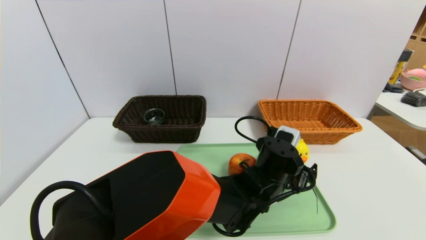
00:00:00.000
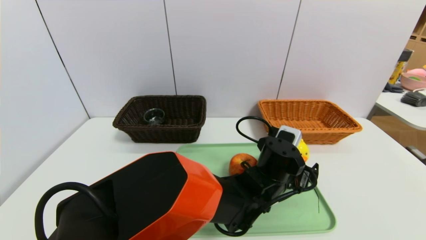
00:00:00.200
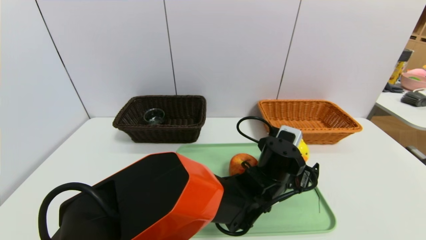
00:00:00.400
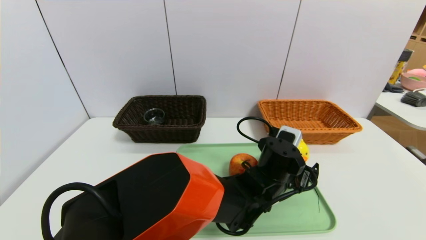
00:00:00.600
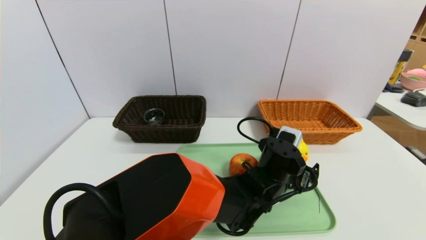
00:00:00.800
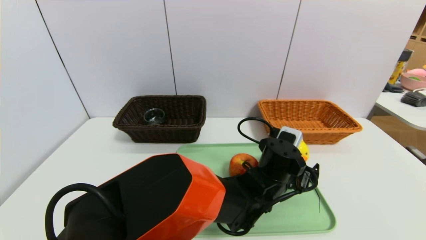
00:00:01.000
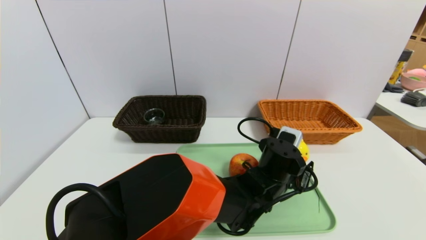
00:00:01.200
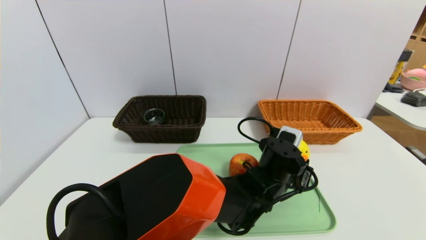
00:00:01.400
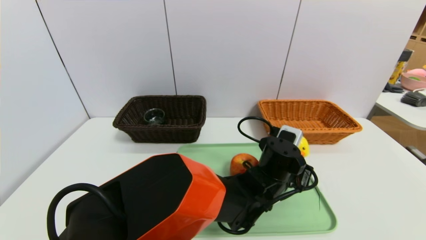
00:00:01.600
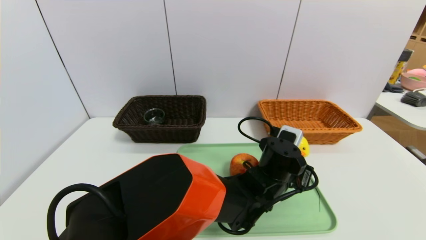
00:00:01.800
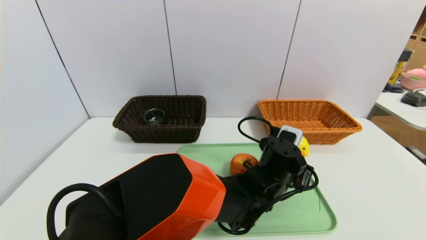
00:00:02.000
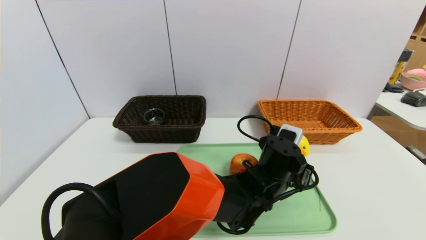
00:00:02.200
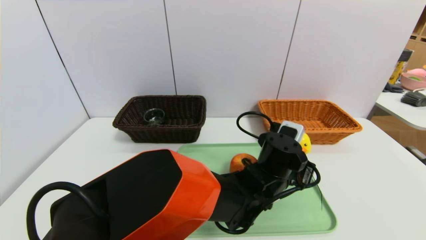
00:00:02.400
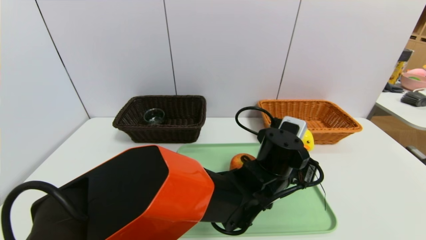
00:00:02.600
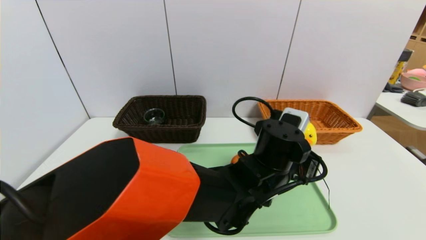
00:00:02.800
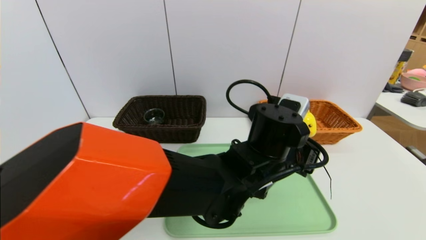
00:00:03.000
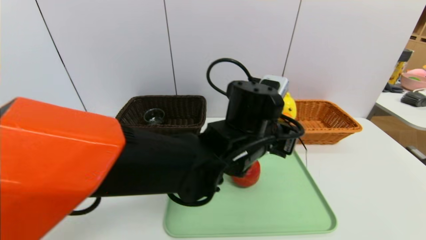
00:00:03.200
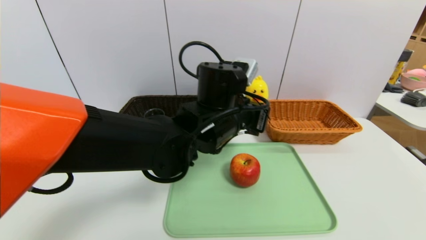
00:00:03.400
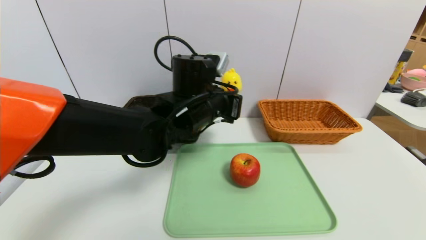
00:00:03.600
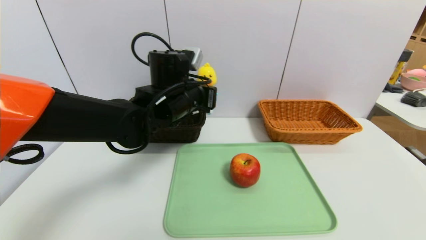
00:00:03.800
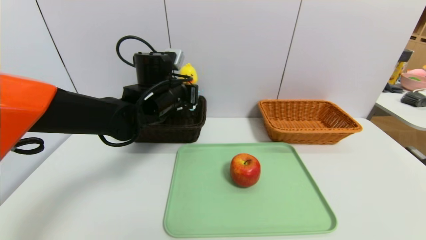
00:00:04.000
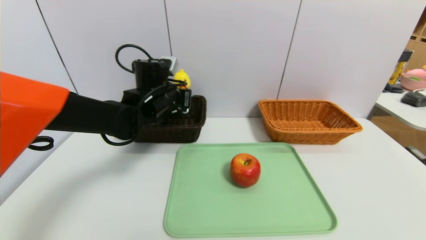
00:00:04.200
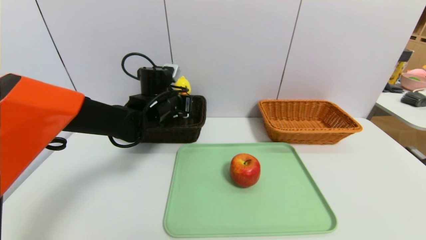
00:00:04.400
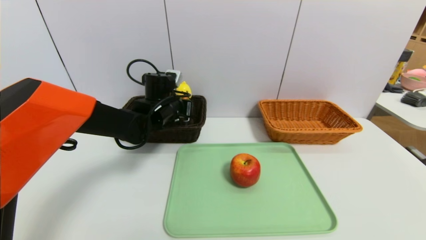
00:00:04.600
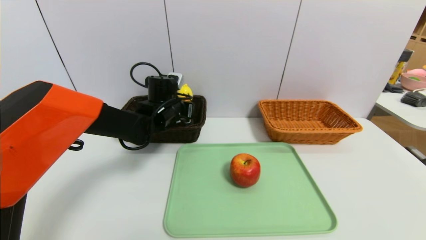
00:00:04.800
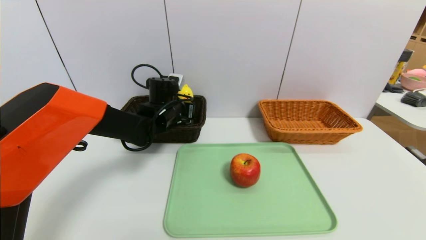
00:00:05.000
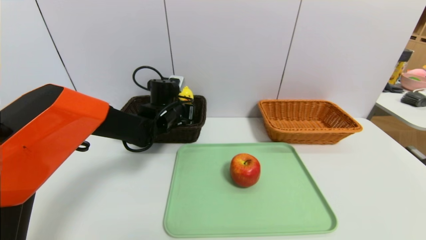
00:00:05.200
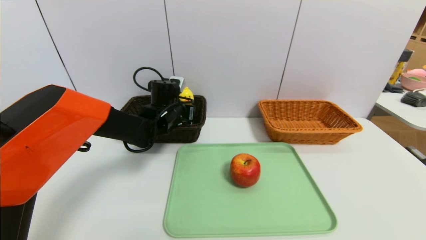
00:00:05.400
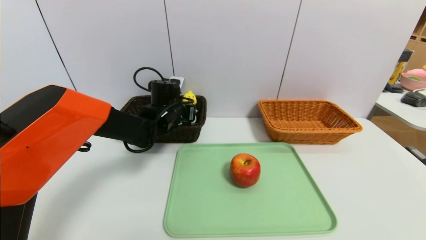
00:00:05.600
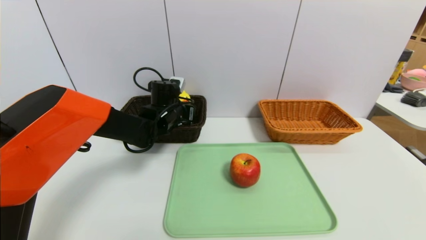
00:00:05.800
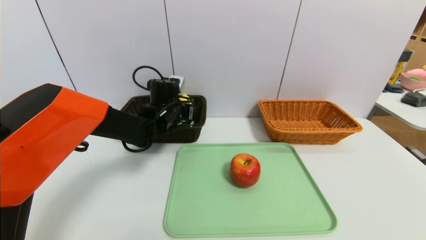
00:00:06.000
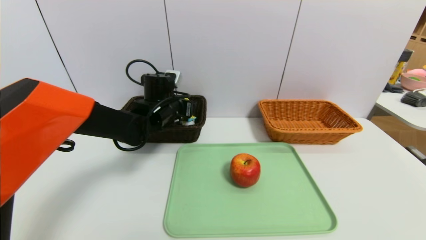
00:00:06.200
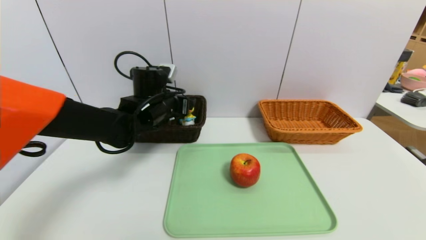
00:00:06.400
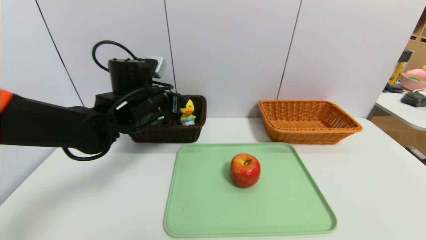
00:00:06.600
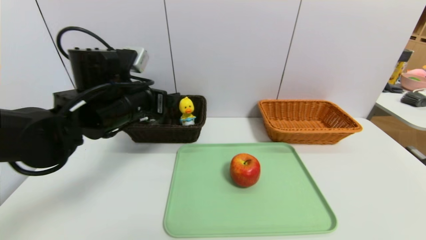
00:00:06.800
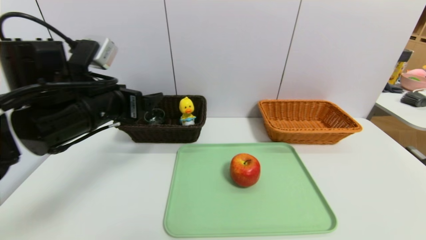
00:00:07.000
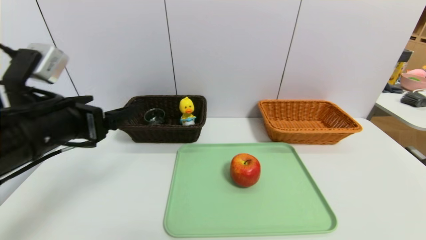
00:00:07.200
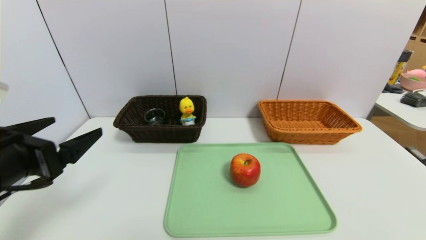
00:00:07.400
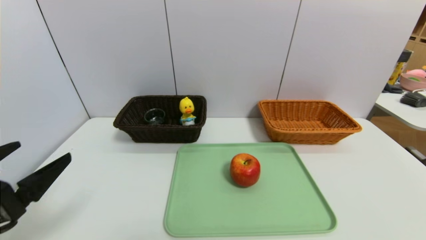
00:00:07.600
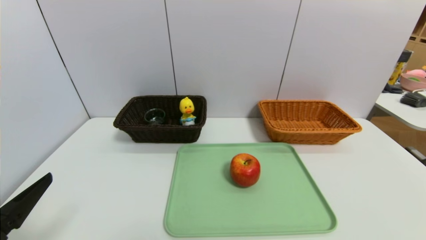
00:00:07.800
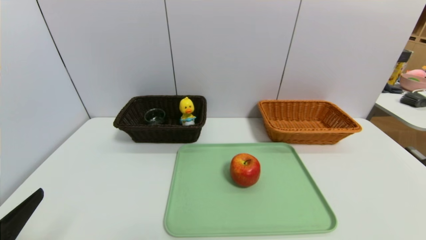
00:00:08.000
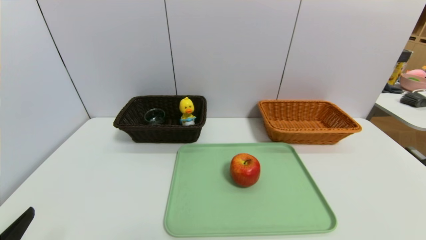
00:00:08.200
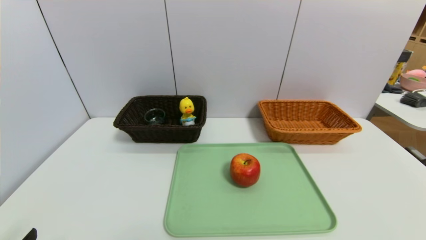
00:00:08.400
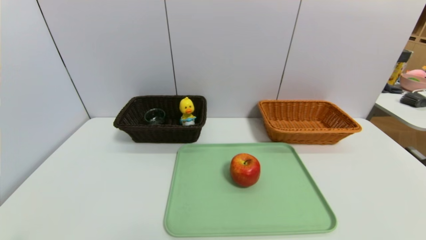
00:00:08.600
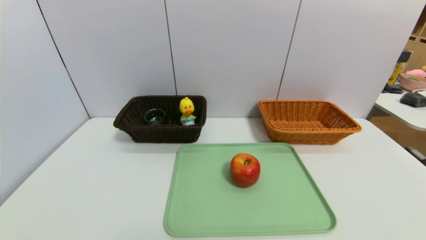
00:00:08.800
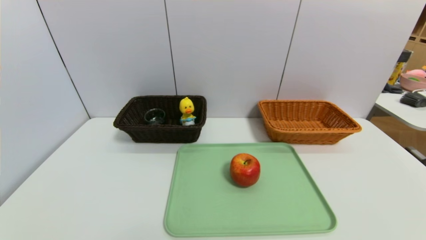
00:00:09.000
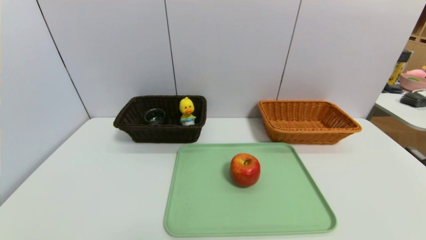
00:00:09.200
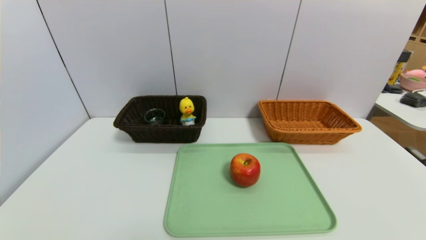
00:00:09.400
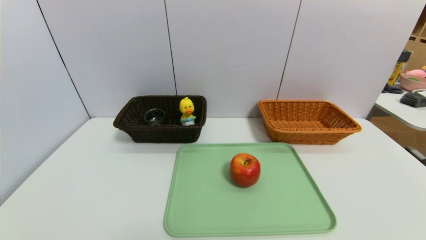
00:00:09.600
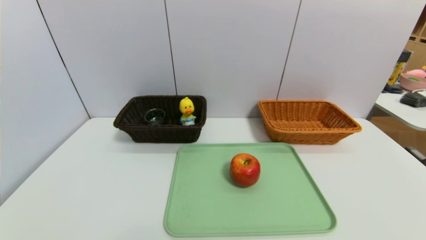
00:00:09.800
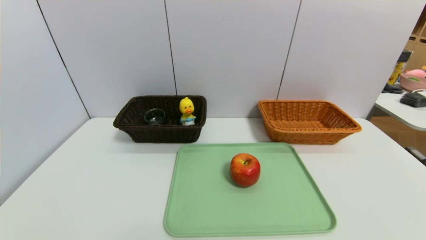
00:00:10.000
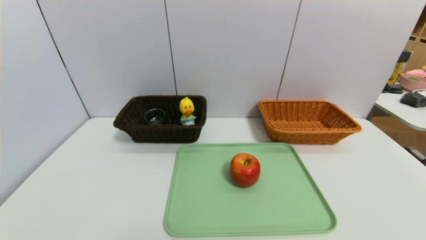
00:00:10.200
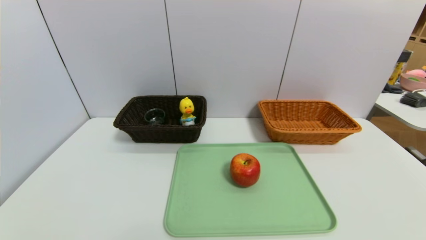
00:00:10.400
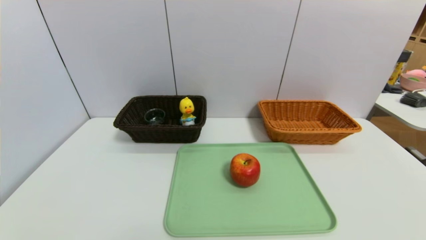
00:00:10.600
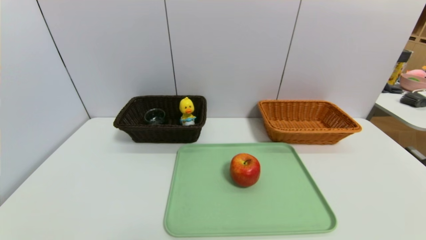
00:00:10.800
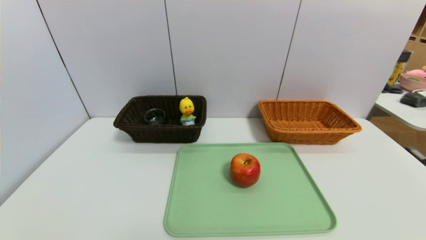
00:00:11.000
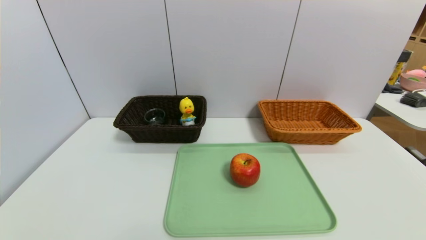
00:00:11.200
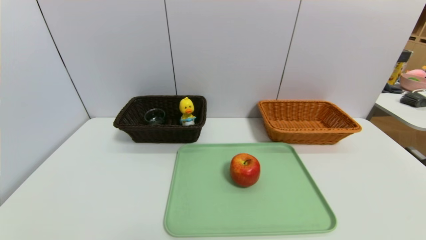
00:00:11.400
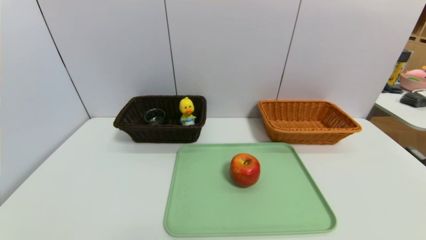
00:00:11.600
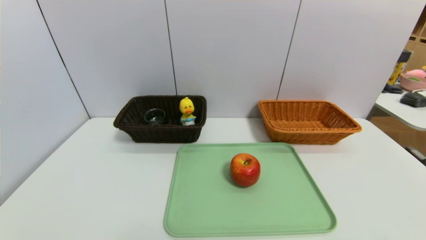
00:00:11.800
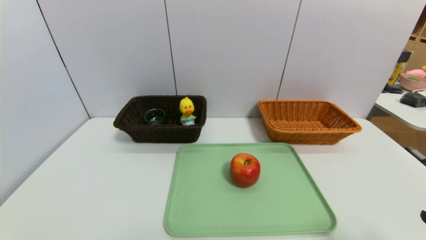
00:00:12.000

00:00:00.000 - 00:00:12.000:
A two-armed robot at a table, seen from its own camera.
Task of the whole recording: place the food in the right basket with the right gripper, and place the non food items in the left basket with the left gripper.
Step, 00:00:00.000 - 00:00:06.000: Grasp the duck toys and put it in the left basket.
00:00:00.000 - 00:00:01.600: The left gripper closes.
00:00:01.600 - 00:00:03.000: The left gripper is displaced upward by roughly 10 cm.
00:00:03.000 - 00:00:04.400: The left gripper heads to the left and forward, covering approximately 25 cm.
00:00:04.400 - 00:00:06.000: The left gripper opens its fingers.
00:00:06.000 - 00:00:07.600: The left gripper travels backward and to the left by about 35 cm.
00:00:07.600 - 00:00:09.000: The left gripper moves downward and backward, approximately 15 cm.

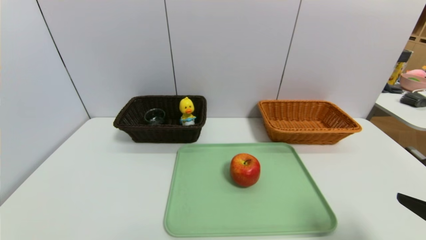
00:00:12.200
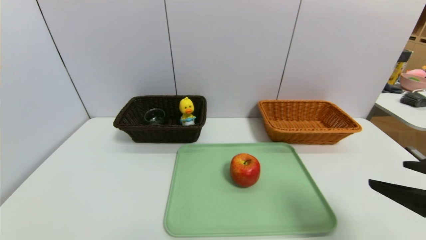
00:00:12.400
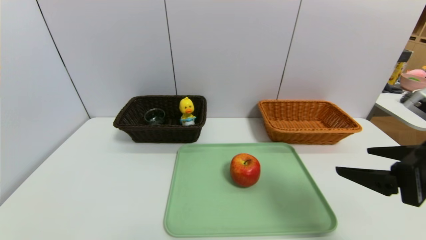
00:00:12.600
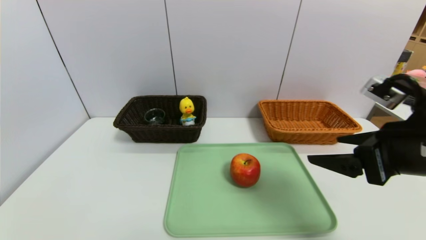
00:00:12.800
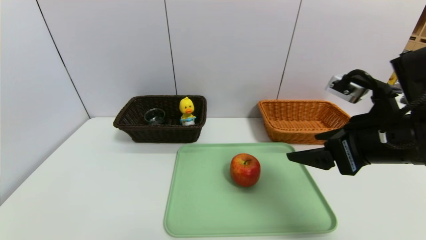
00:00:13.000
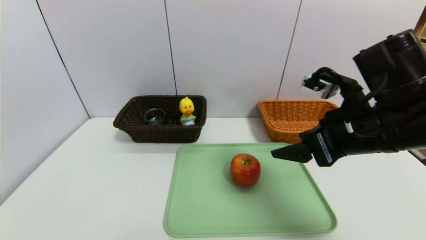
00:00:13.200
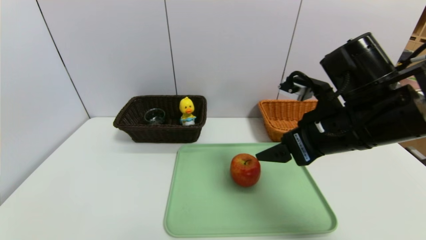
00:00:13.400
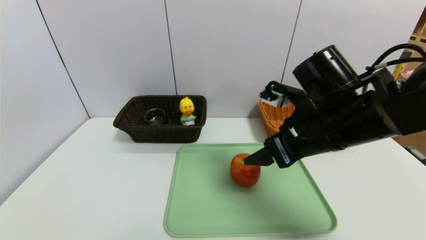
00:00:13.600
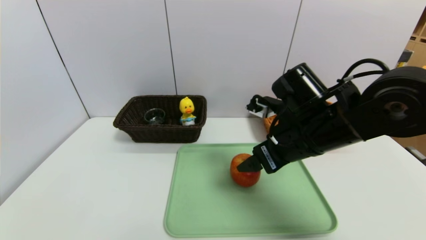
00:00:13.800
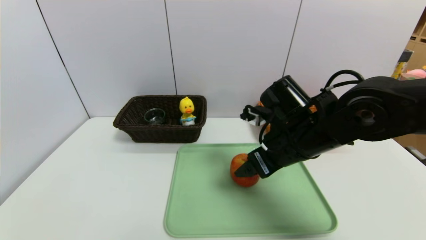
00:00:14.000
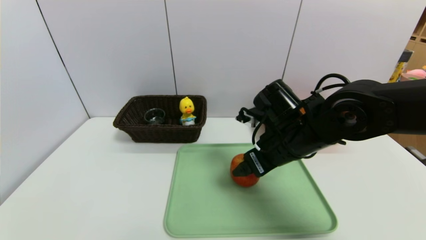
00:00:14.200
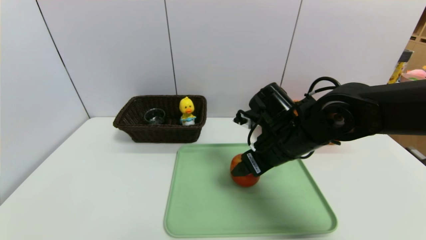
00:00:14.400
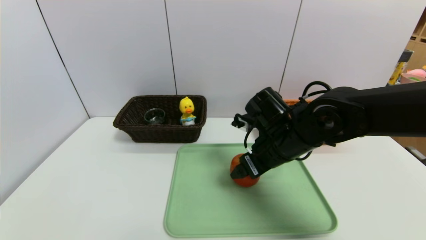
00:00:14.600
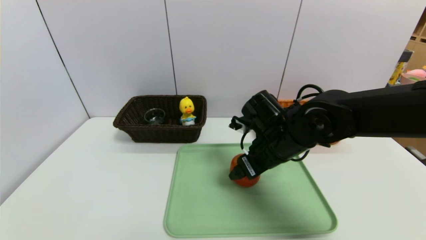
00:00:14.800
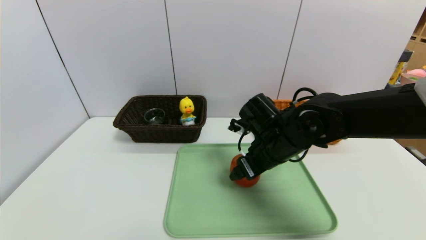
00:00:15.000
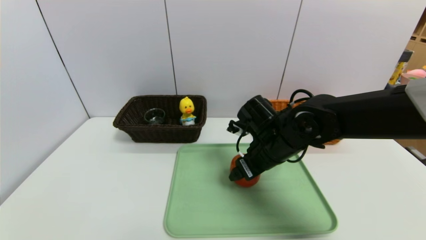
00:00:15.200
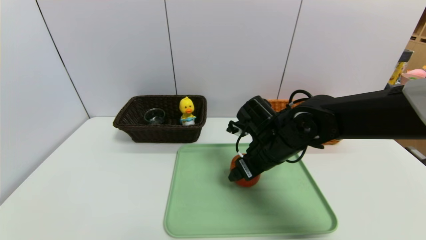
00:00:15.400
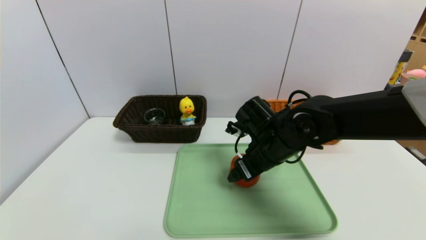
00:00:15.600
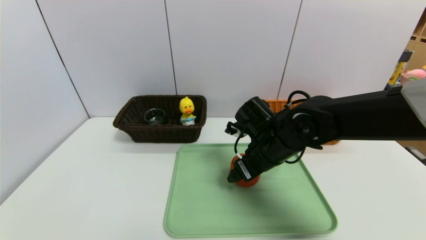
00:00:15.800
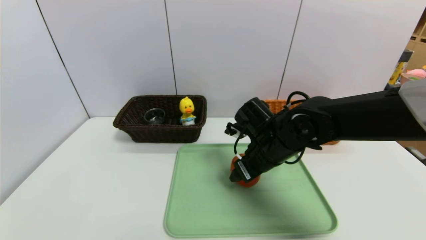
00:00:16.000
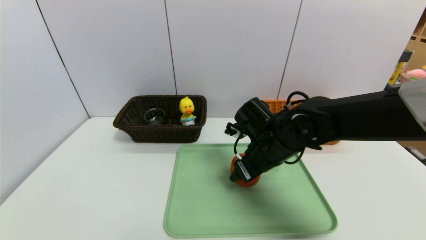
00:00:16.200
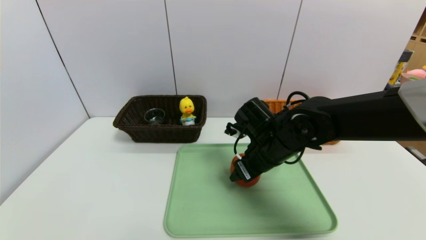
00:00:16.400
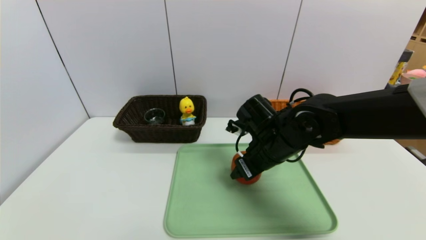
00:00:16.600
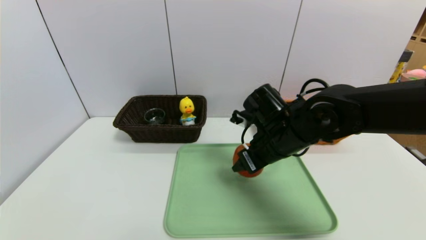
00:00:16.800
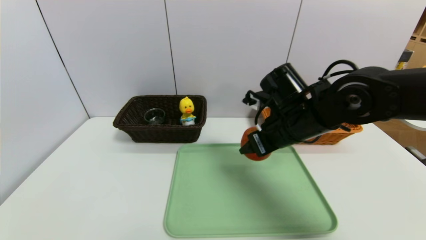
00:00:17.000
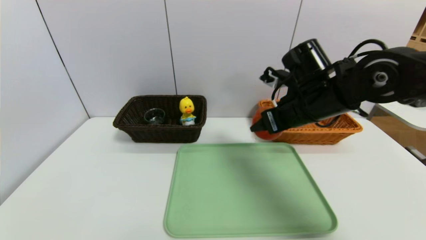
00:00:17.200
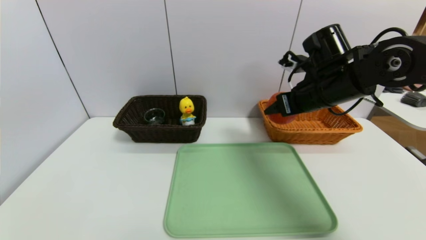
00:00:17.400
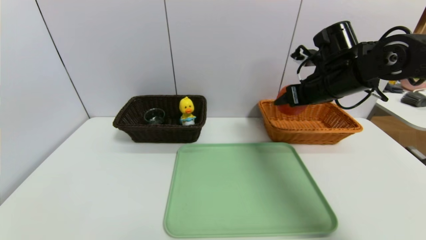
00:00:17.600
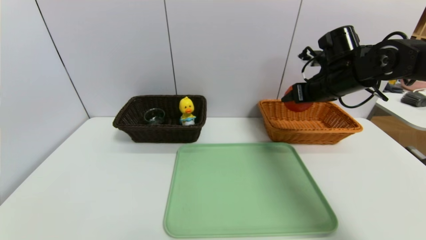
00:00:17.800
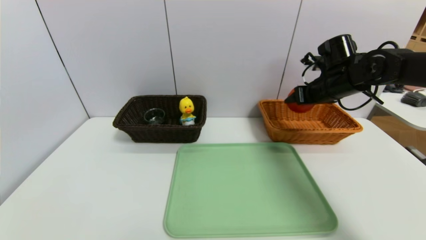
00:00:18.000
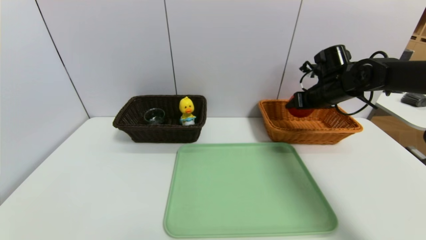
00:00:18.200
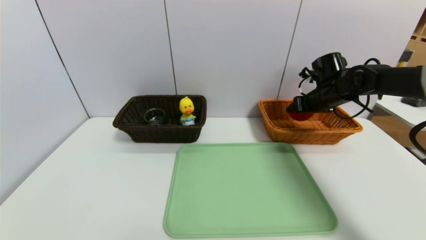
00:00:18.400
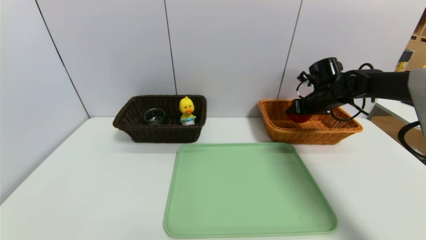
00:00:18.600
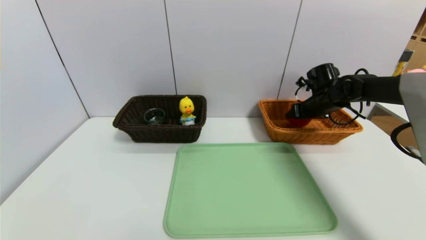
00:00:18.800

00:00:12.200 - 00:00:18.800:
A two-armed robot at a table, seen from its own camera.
Task of the whole recording: place the food in the right basket with the right gripper, and place the non food items in the left basket with the left gripper.
00:00:12.200 - 00:00:13.800: The right gripper travels to the left and forward by roughly 25 cm.
00:00:13.800 - 00:00:15.400: The right gripper travels downward by roughly 5 cm.
00:00:15.400 - 00:00:17.200: The right gripper shifts approximately 10 cm upward and to the right, and closes up.
00:00:17.200 - 00:00:18.800: The right gripper is displaced forward, to the right and downward by roughly 20 cm.
